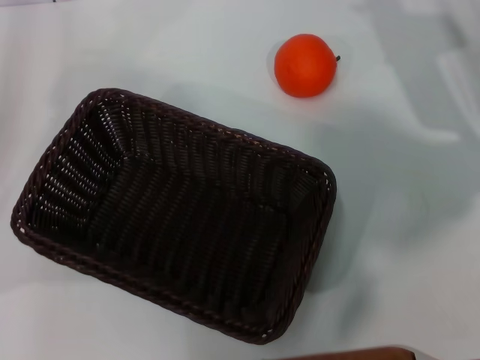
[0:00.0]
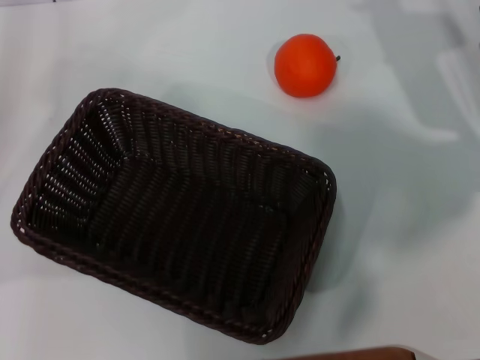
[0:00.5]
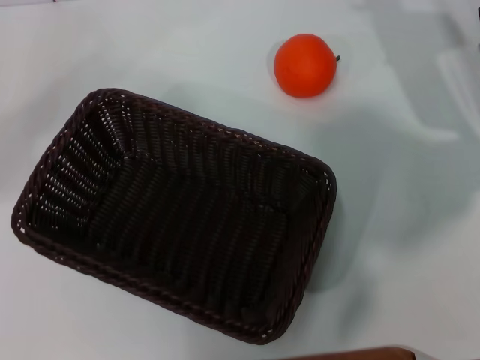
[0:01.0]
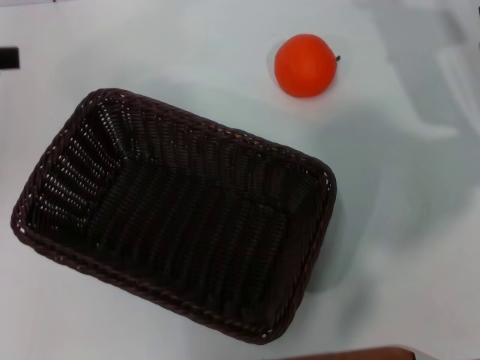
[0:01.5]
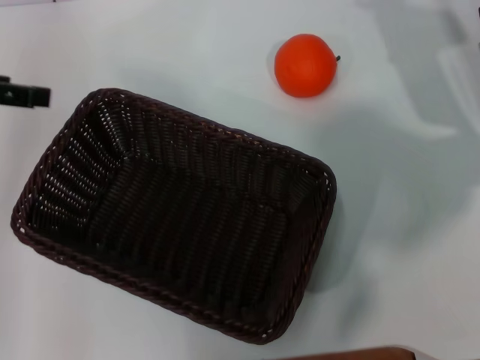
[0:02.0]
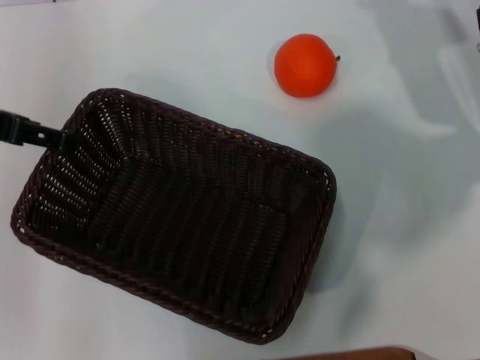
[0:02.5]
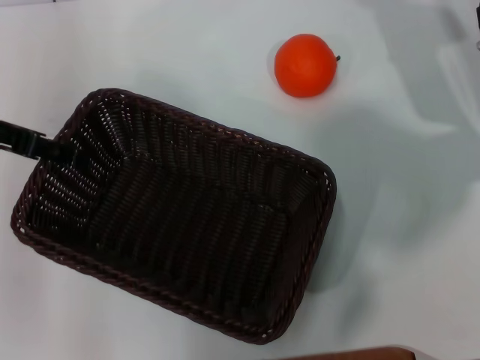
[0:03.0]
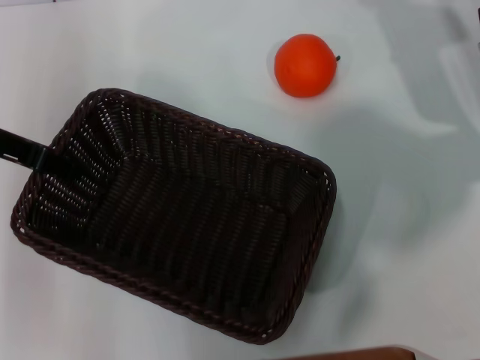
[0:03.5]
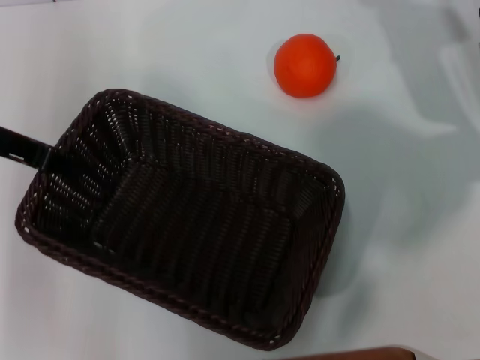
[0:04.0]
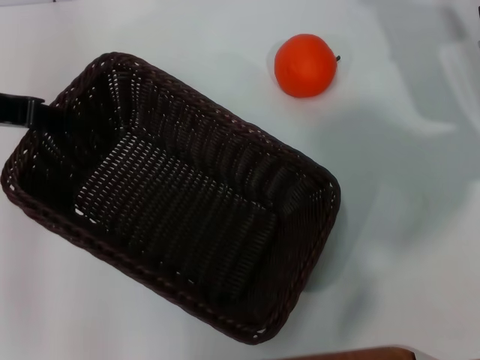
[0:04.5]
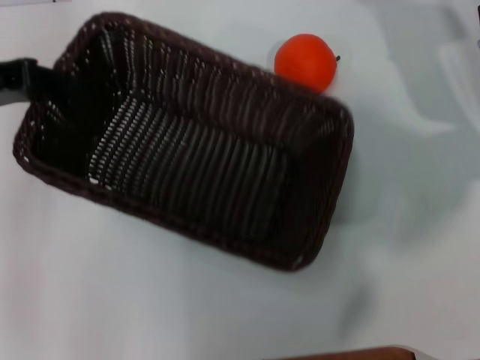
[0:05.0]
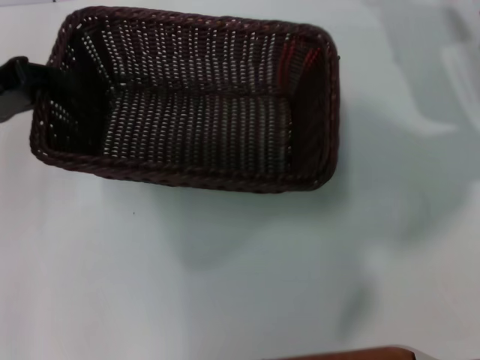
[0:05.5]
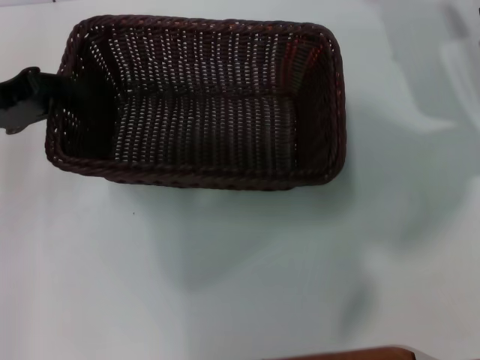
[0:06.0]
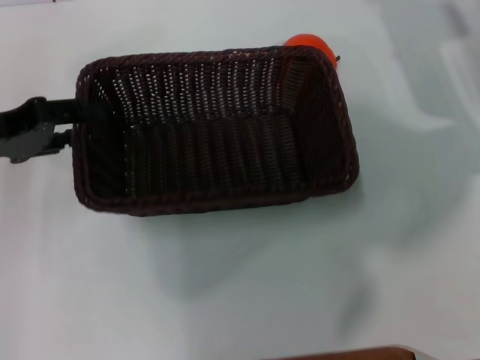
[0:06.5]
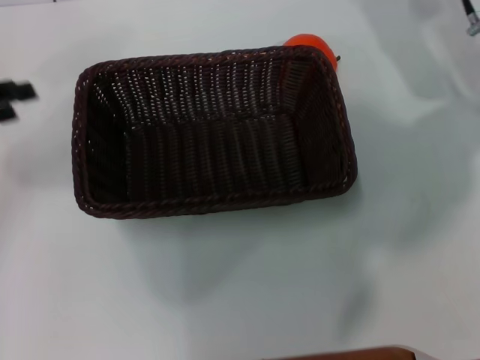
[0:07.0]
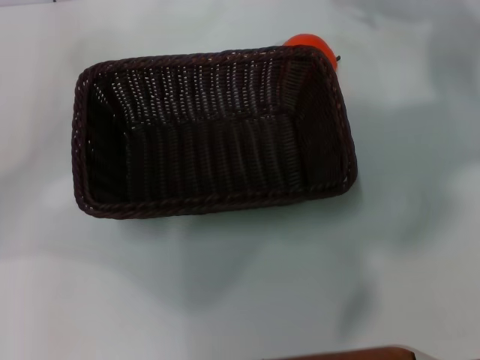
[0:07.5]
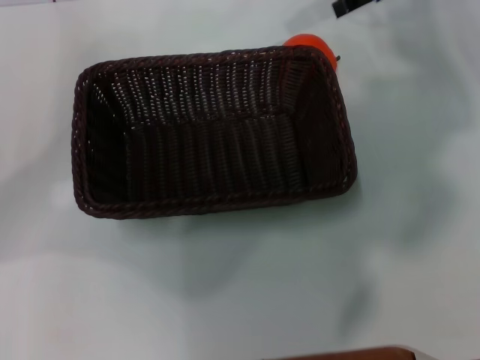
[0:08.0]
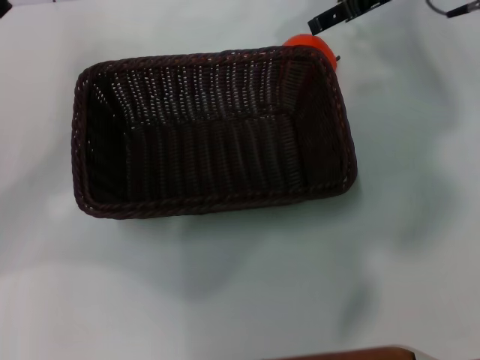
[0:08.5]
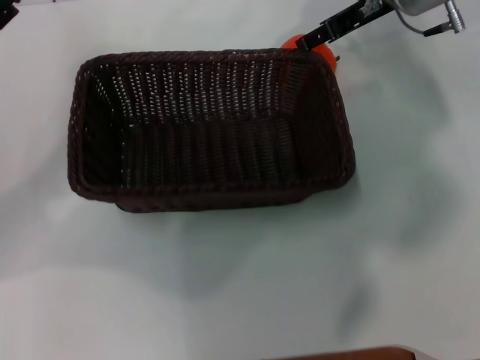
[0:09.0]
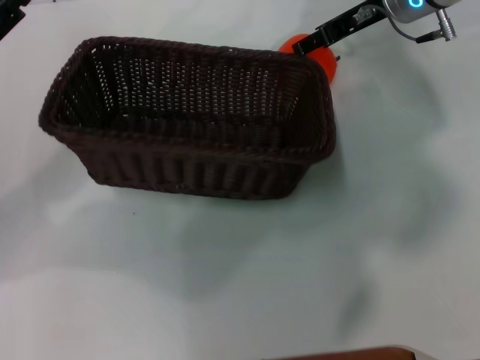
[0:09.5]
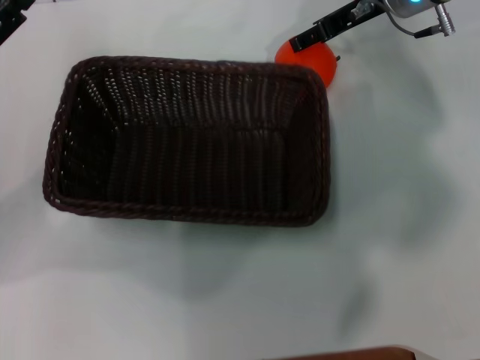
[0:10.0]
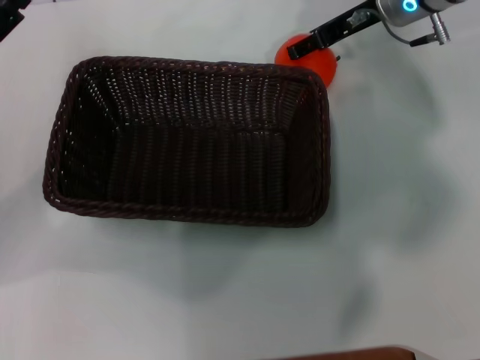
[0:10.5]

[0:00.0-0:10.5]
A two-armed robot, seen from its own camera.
Task of the whole recording: the left gripper pick up the black basket and place it horizontally in the middle of the table, the right gripper pick up the orange and place it into the black basket.
Step, 0:00.0 to 0:04.0: Pick up the dark basket with the left gripper.
Step, 0:04.5 to 0:06.5: Place the dark basket in the center of view with the left gripper.
0:00.0 to 0:02.0: The left gripper heads upward, covering approximately 10 cm.
0:02.0 to 0:04.0: The left gripper moves roughly 5 cm, and closes its fingers.
0:04.0 to 0:06.5: The left gripper ends up some 5 cm from where it was, and opens its fingers.
0:06.5 to 0:08.5: The right gripper shifts roughly 10 cm upward, to the left and forward. The left gripper opens up.
0:08.5 to 0:10.5: The grippers make only small movements.

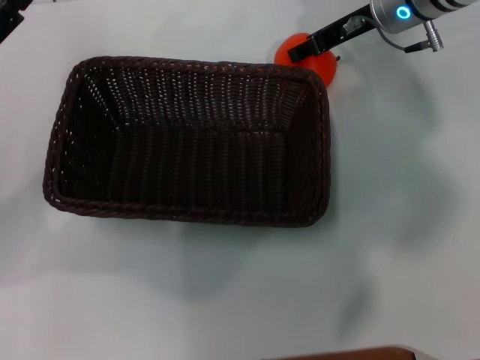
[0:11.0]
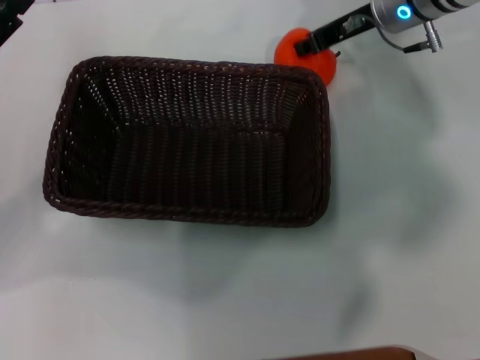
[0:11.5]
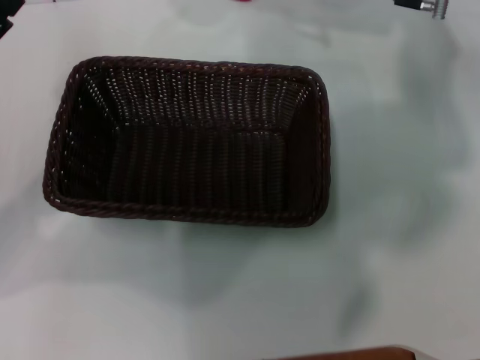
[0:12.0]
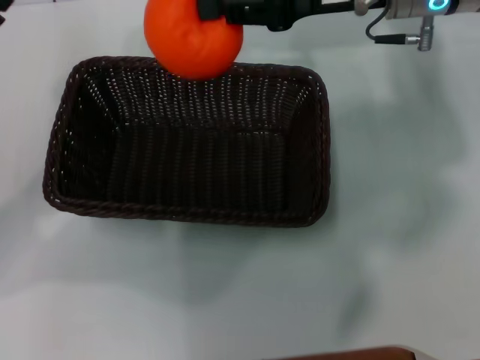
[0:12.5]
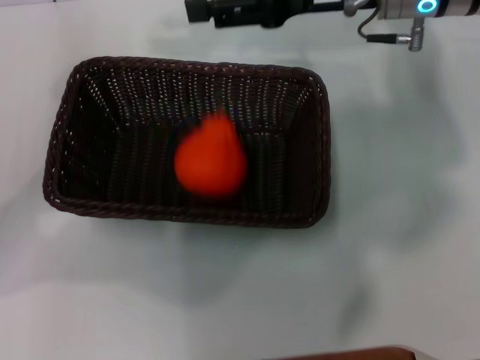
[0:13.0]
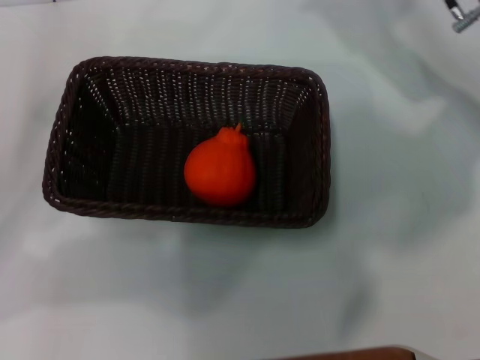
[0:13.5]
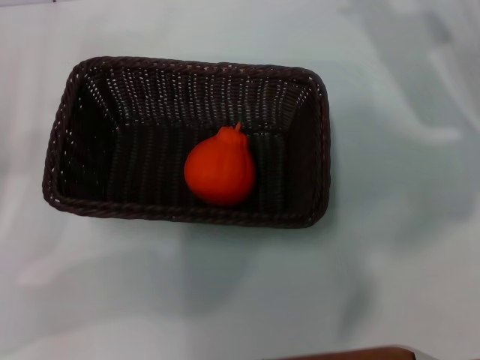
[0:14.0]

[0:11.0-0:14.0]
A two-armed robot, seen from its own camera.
Task of the whole recording: the left gripper pick up the black basket and place it horizontally in the middle of the table, the right gripper pick up the orange and place it into the black basket.
Step, 0:12.0 to 0:13.0: Place the orange into the dark basket with the right gripper.
0:11.0 to 0:12.5: The right gripper moves backward and upward, about 10 cm, and closes its fingers.
0:12.5 to 0:14.0: The right gripper travels to the right and downward by about 10 cm, and opens.
